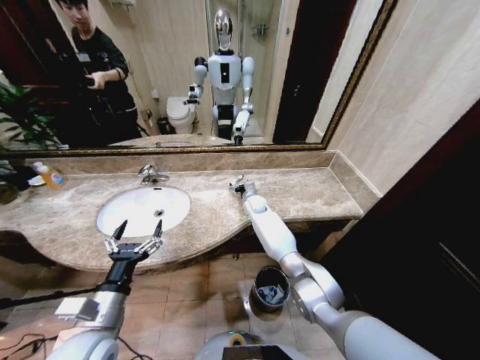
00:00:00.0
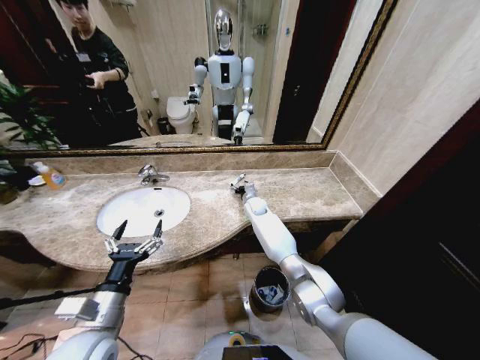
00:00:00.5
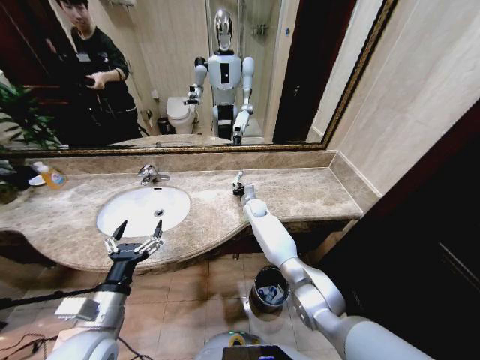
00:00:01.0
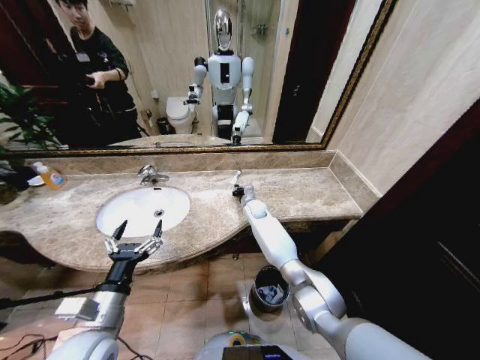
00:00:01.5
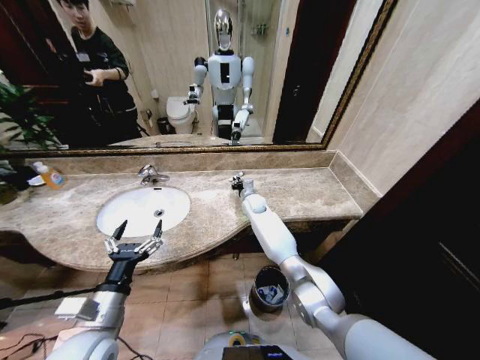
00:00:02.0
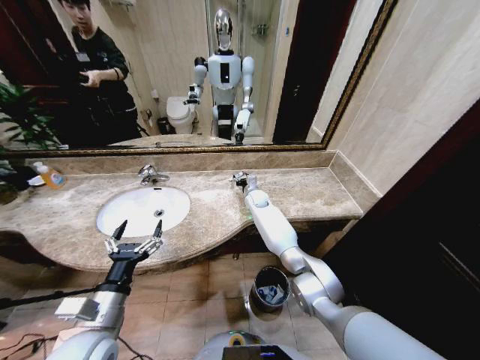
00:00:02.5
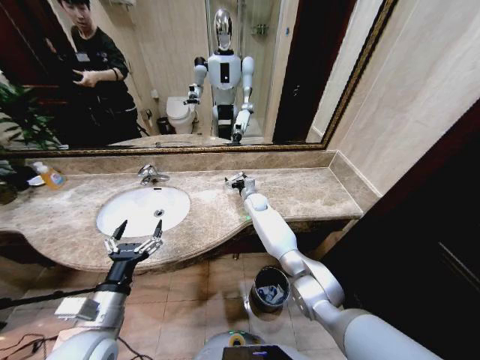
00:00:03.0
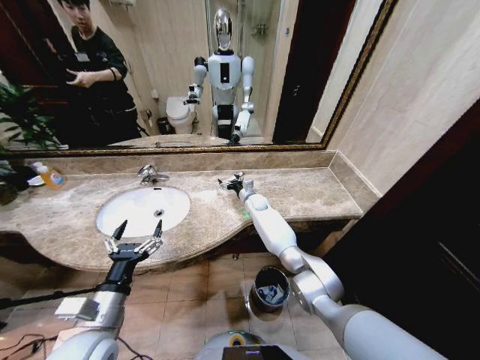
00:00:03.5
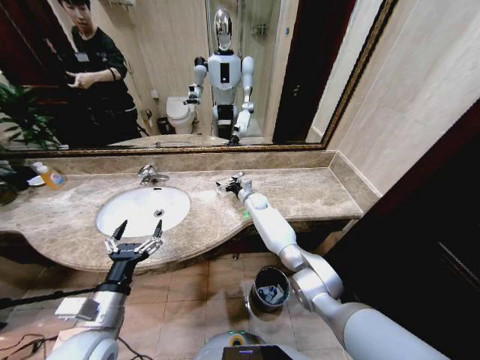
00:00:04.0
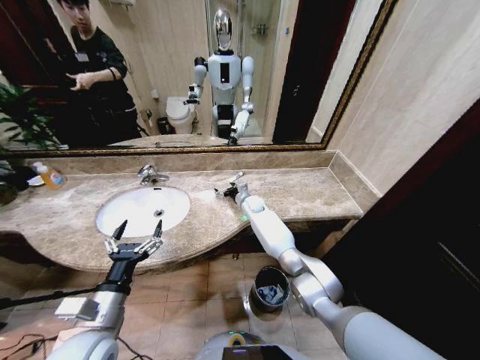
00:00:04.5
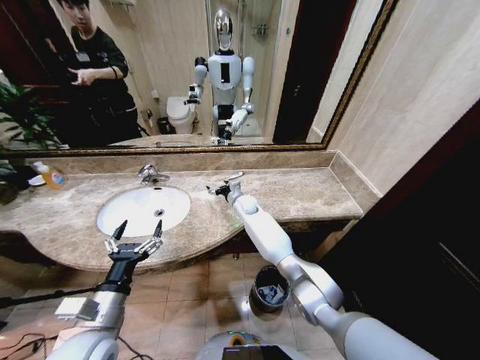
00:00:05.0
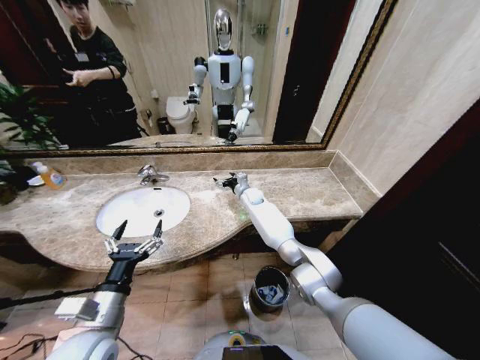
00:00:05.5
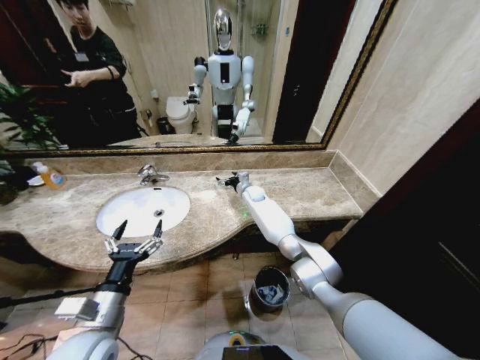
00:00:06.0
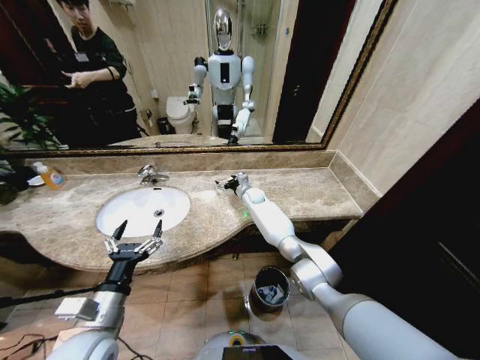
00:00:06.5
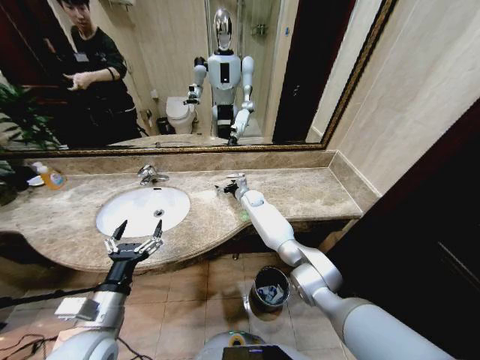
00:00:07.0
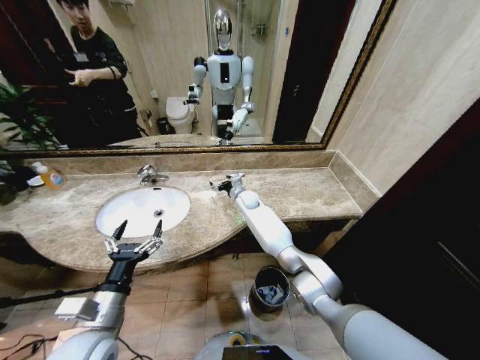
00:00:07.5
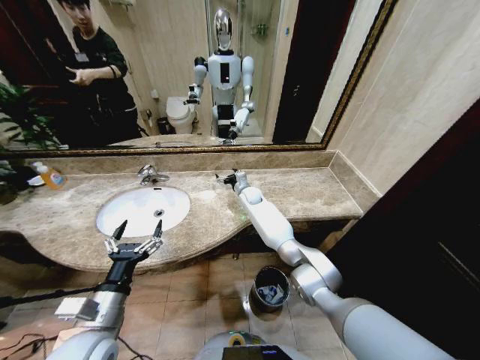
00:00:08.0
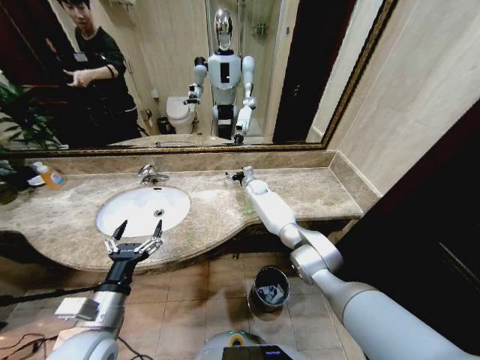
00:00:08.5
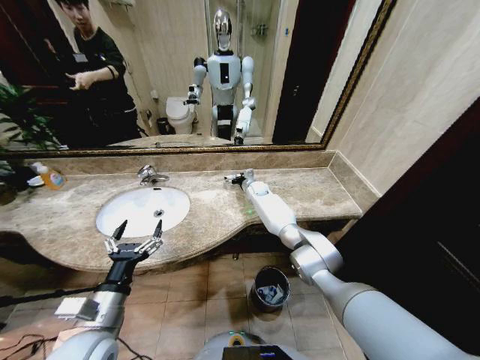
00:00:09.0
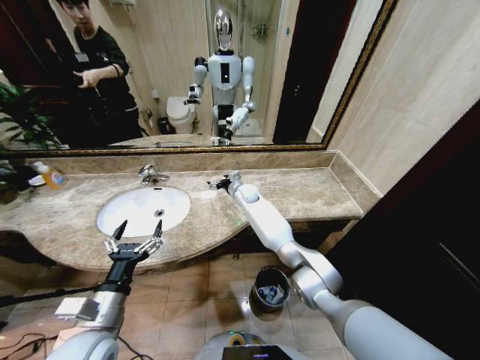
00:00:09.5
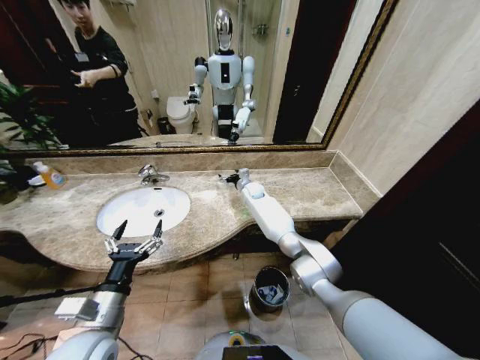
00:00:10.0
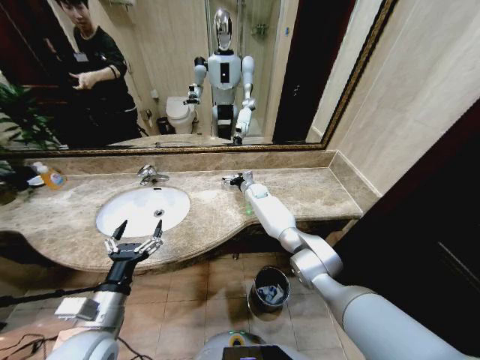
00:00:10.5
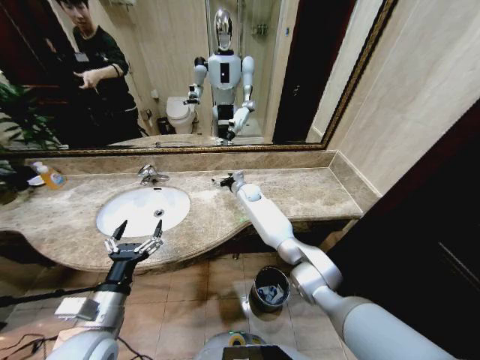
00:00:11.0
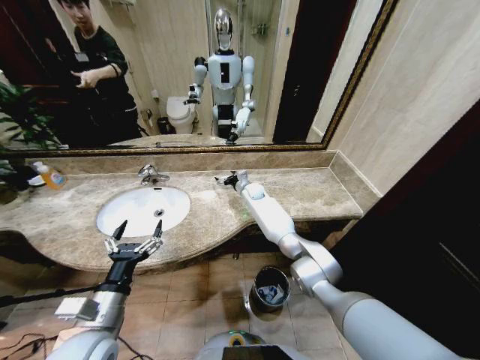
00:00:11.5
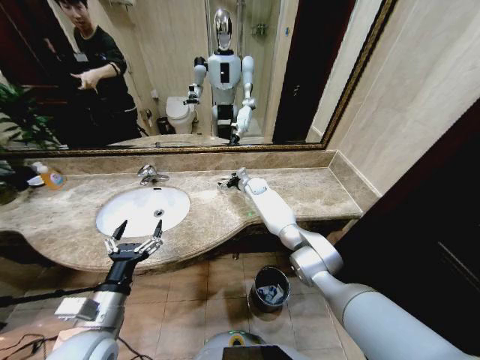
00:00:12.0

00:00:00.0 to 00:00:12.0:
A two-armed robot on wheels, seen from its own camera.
Task of the whole recording: Pick up the trash from the sink and place it in the trash bin.
00:00:00.0 to 00:00:02.0: The right gripper closes its fingers.
00:00:02.0 to 00:00:04.0: The right gripper opens.
00:00:08.0 to 00:00:12.0: The grippers make only small movements.

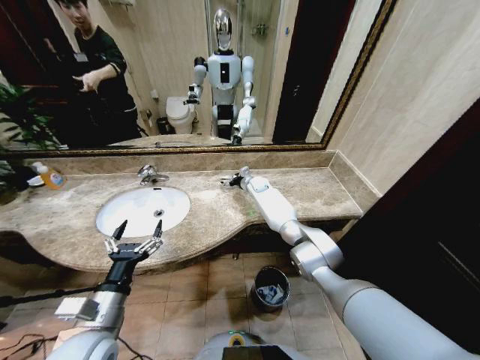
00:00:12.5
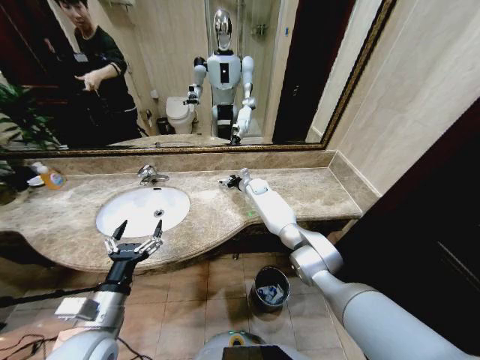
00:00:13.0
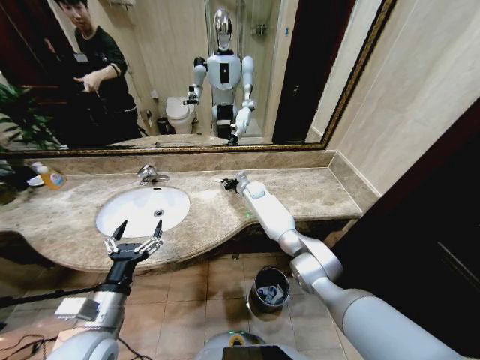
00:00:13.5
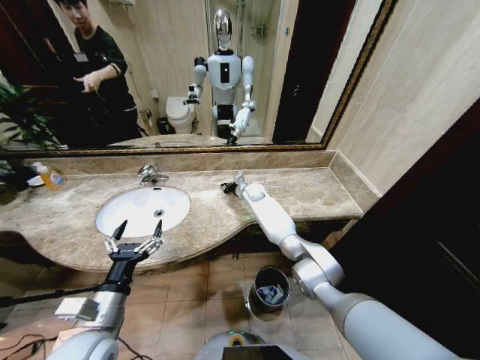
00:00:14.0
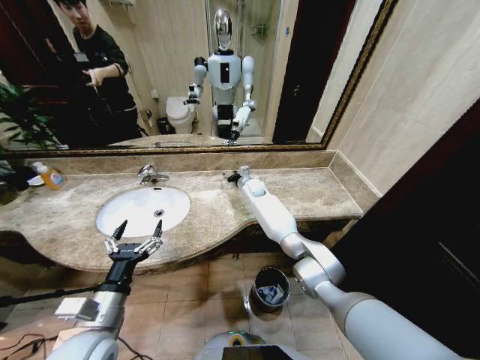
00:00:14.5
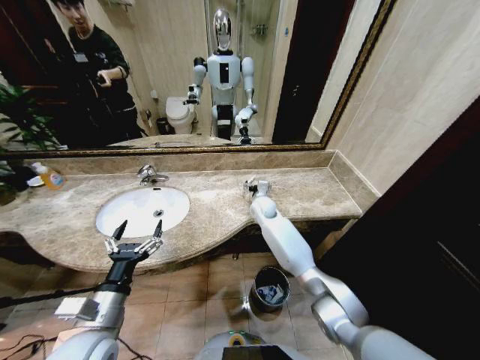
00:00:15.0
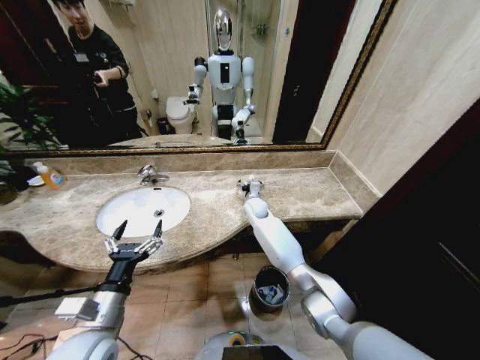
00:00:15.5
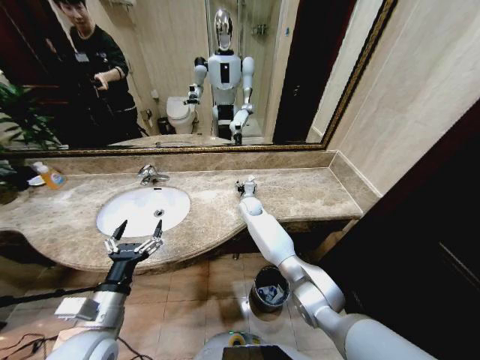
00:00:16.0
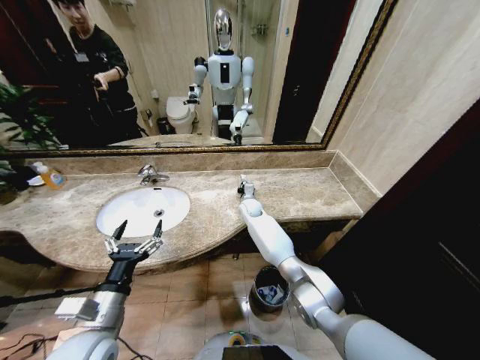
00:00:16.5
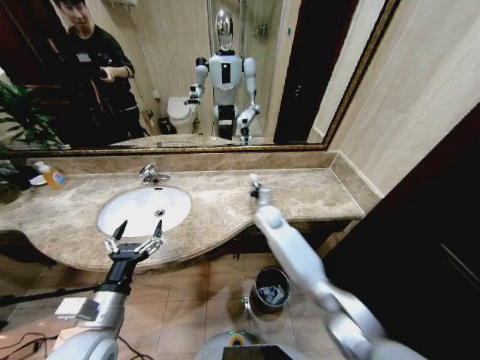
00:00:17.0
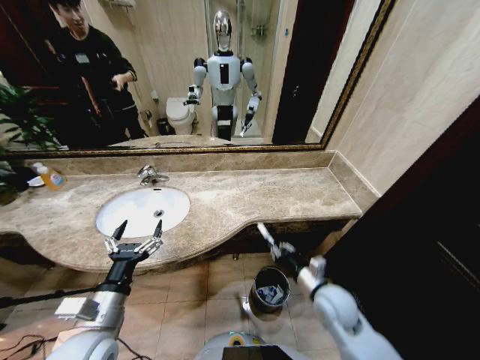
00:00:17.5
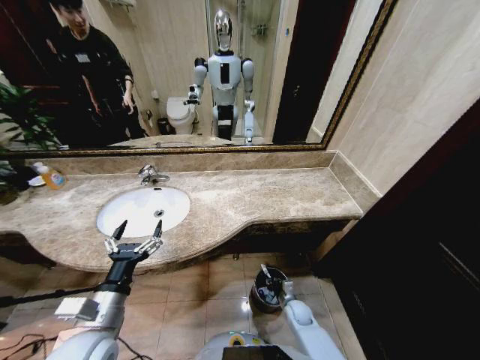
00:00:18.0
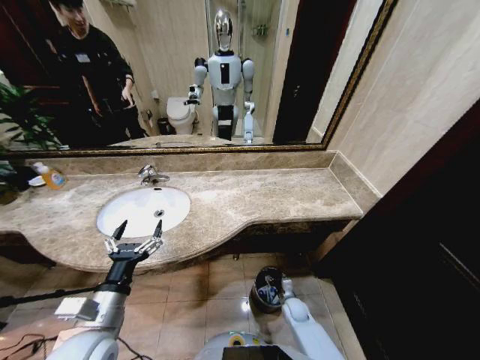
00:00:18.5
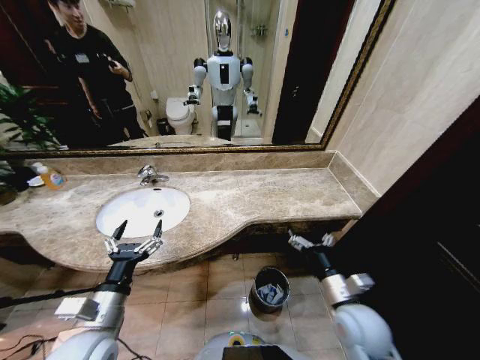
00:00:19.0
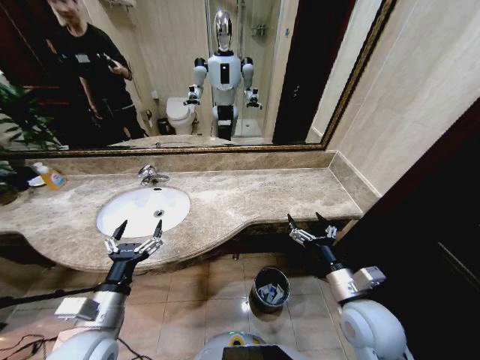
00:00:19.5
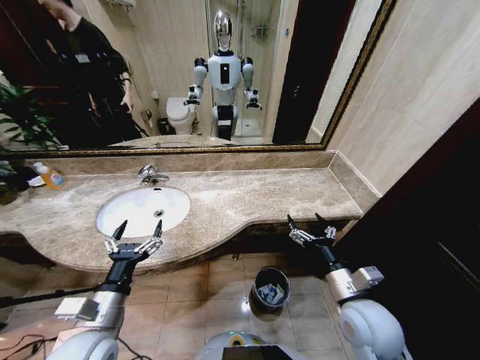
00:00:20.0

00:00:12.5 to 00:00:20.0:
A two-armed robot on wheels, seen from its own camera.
Task of the whole recording: Pick up the trash from the sink and place it in the trash bin.
00:00:12.5 to 00:00:14.5: The right gripper closes its fingers.
00:00:14.5 to 00:00:16.5: The right gripper moves downward and backward, roughly 10 cm, and closes up.
00:00:16.5 to 00:00:18.0: The right gripper travels backward, downward and to the right by some 40 cm.
00:00:18.0 to 00:00:20.0: The right gripper heads upward, covering some 35 cm, and opens up.
